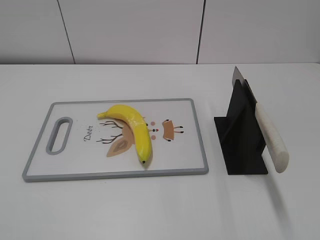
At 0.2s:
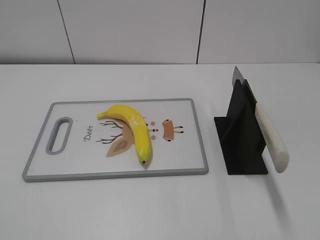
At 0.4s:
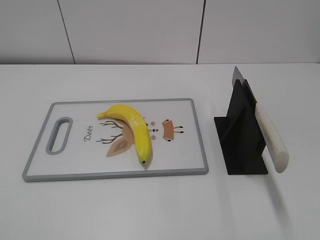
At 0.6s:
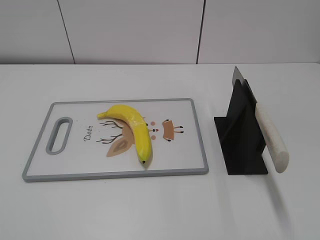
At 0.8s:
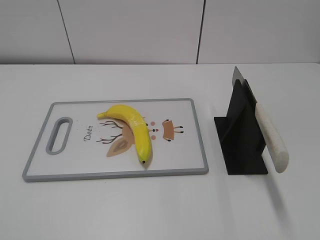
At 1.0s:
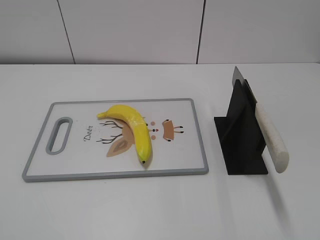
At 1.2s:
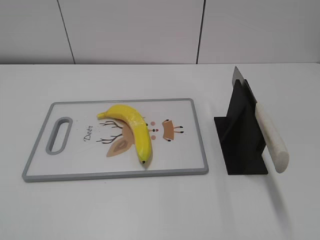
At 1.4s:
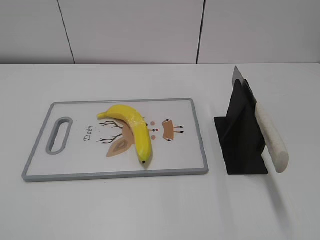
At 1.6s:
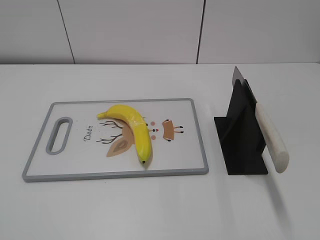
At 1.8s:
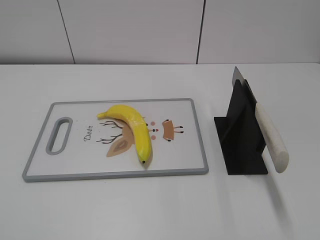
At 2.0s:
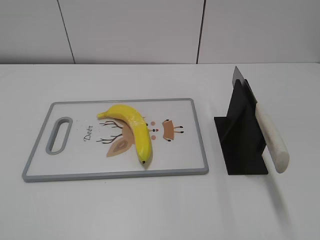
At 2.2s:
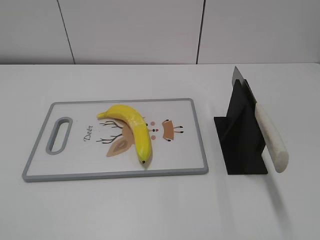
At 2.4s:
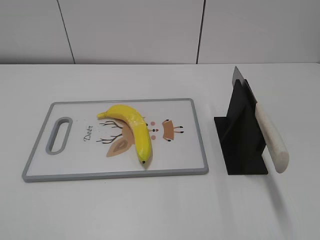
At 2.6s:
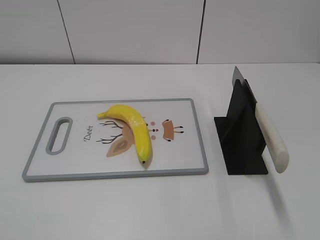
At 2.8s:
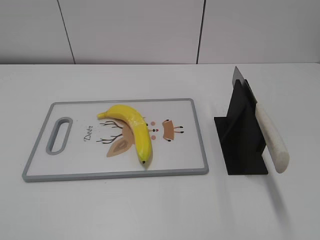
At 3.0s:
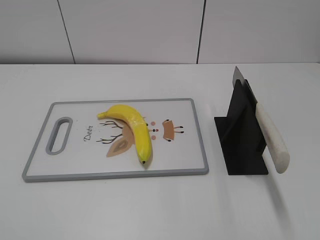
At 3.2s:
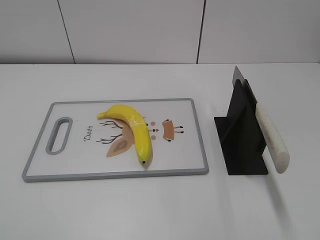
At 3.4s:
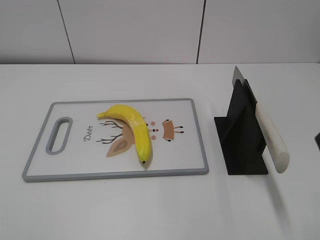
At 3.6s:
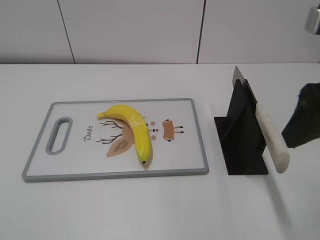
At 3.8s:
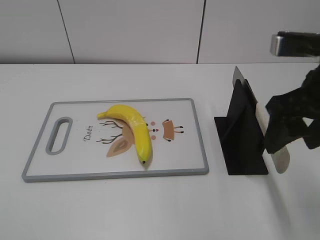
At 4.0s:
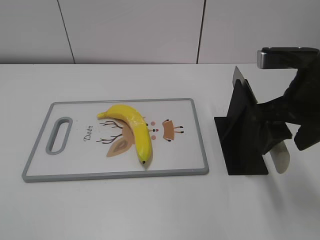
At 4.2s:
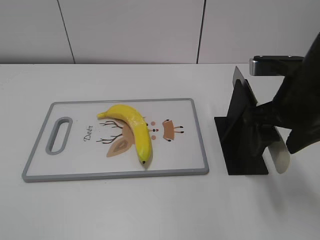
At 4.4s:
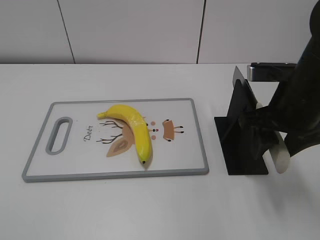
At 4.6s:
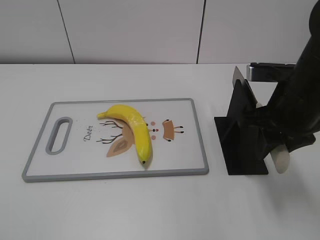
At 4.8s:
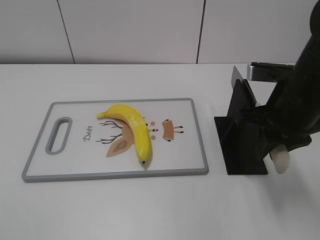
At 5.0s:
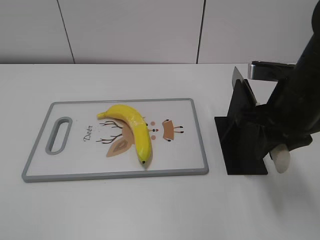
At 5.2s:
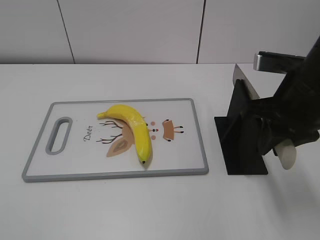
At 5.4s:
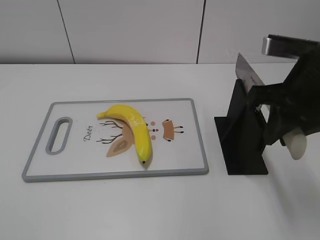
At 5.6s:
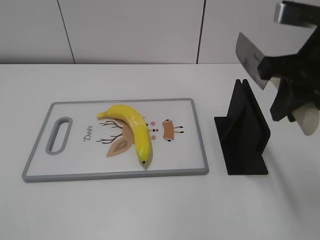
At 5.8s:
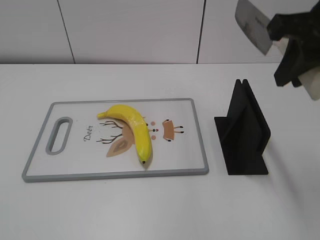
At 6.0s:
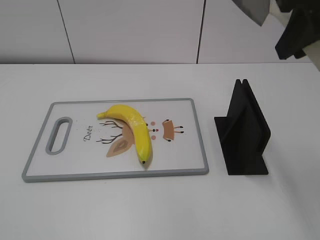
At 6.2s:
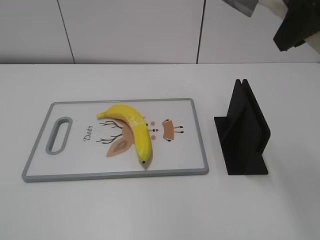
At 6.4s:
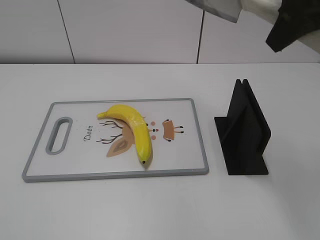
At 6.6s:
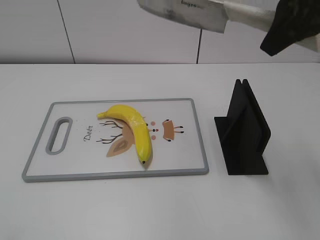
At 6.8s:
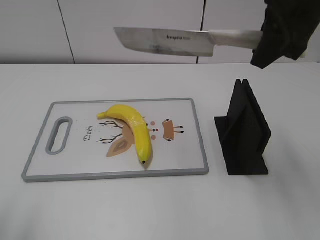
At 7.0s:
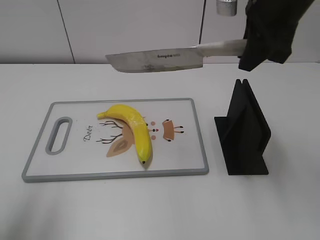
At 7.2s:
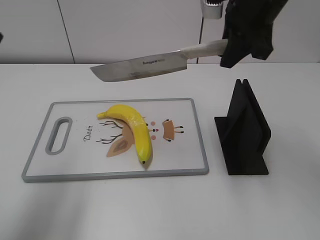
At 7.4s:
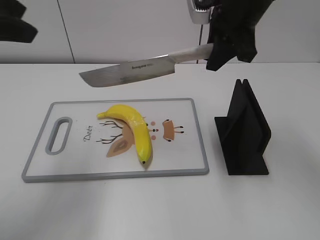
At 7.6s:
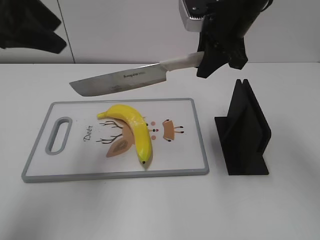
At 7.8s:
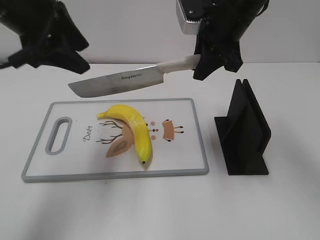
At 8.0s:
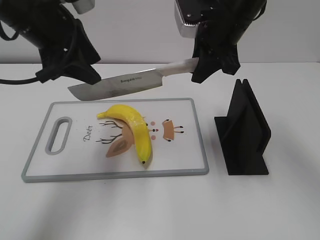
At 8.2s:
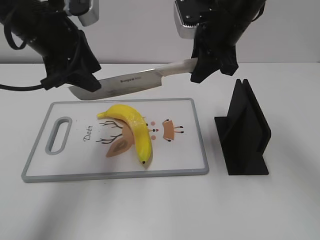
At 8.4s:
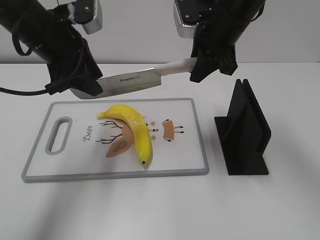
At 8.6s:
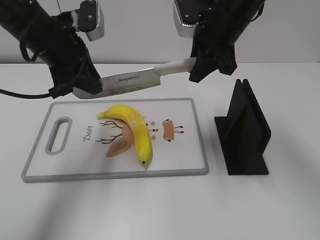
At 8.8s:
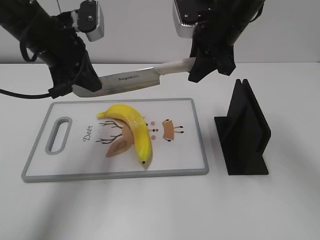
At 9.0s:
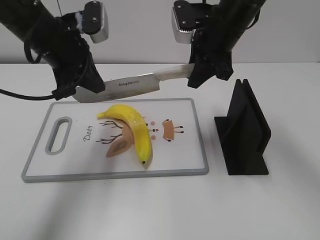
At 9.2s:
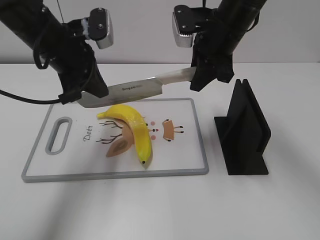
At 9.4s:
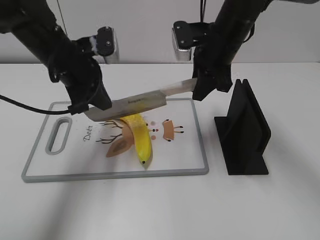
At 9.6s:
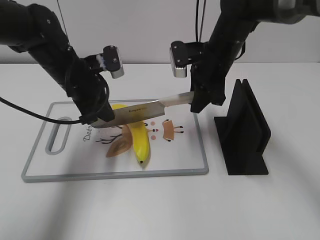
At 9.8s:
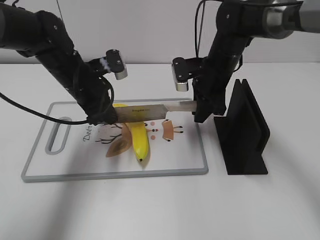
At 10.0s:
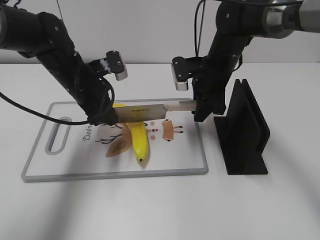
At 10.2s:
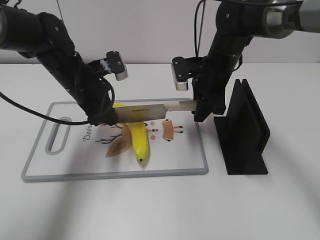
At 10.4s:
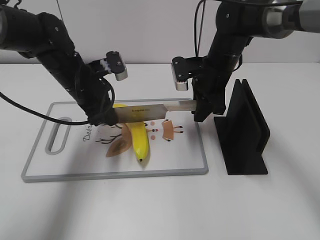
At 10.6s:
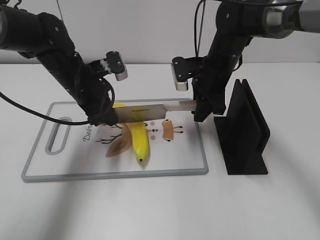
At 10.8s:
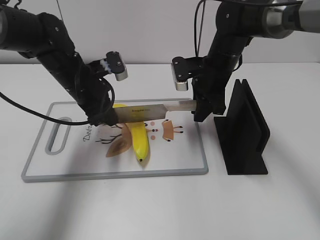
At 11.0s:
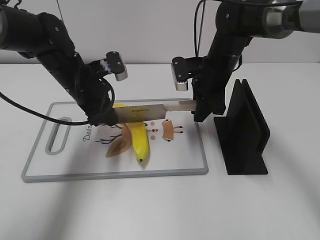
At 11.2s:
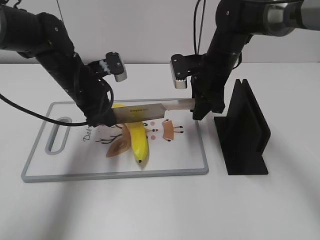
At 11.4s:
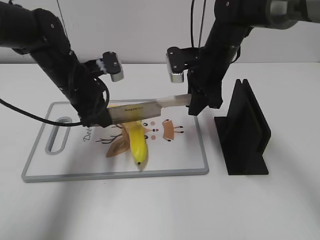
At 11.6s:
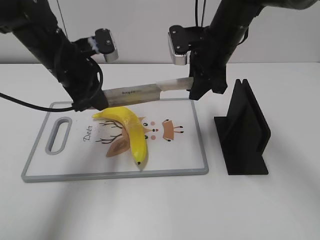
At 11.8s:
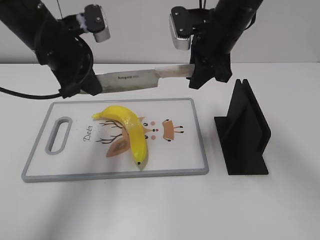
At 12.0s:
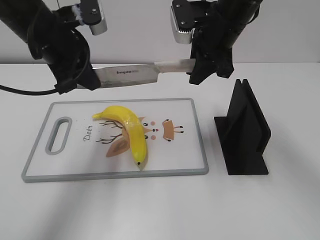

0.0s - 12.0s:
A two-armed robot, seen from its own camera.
Task of the whole recording: cut plastic banana.
Step, 0.0s - 6.0s: Grab the knife handle with your right hand.
Step, 6.2s - 11.0s: Lift the knife with your right hand.
3.0s - 4.4s: The right gripper travels forward, downward and to the left by approximately 20 cm.
4.4s - 6.0s: The right gripper travels upward by some 15 cm, and closes up.
6.0s - 7.6s: The left gripper shifts about 30 cm forward, while the right gripper shifts approximately 20 cm forward, downward and to the left.
7.6s - 9.0s: The left gripper heads downward and to the right, covering approximately 10 cm, and closes its fingers.
9.0s - 10.4s: Both grippers travel together downward, about 10 cm.
10.4s - 12.0s: The two grippers go roughly 10 cm upward.

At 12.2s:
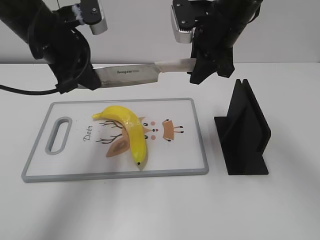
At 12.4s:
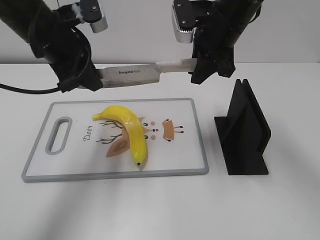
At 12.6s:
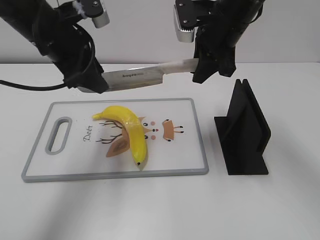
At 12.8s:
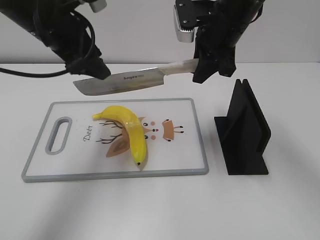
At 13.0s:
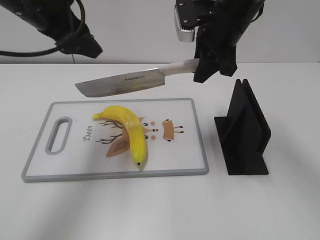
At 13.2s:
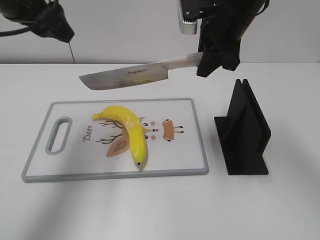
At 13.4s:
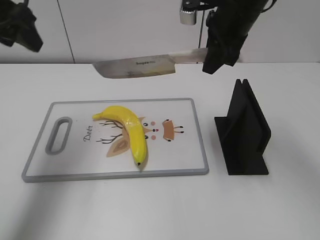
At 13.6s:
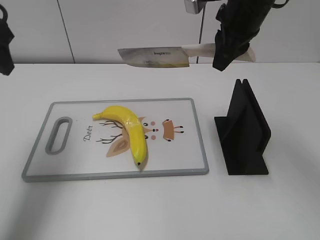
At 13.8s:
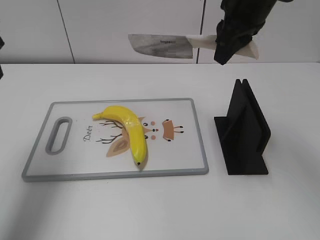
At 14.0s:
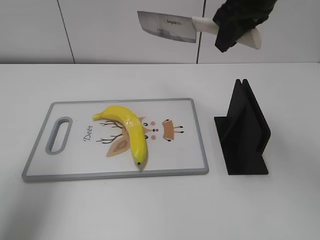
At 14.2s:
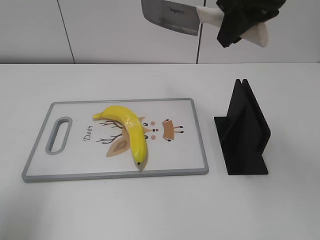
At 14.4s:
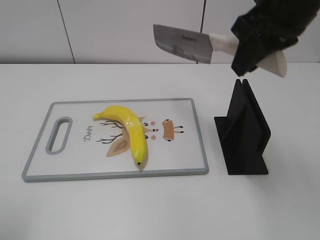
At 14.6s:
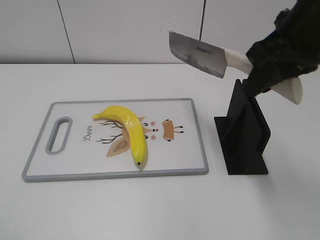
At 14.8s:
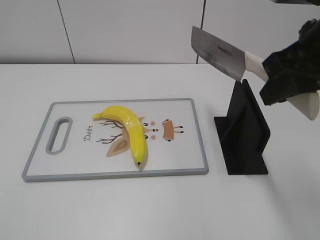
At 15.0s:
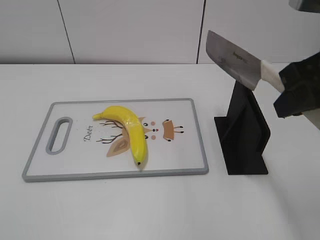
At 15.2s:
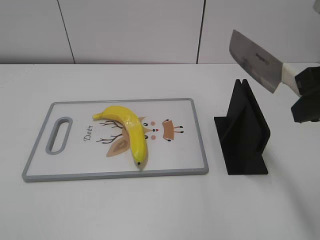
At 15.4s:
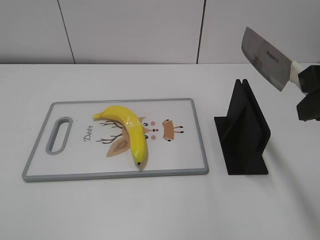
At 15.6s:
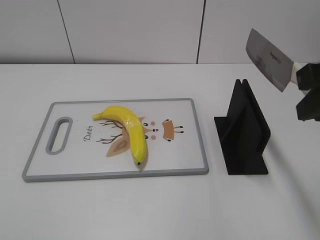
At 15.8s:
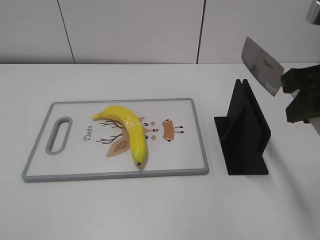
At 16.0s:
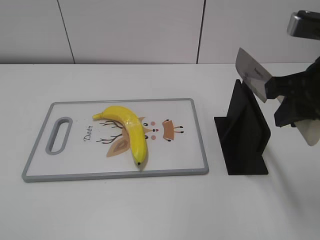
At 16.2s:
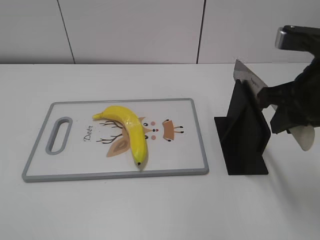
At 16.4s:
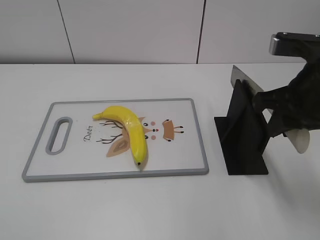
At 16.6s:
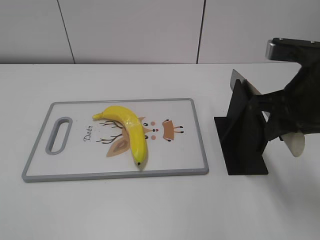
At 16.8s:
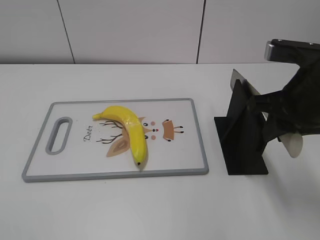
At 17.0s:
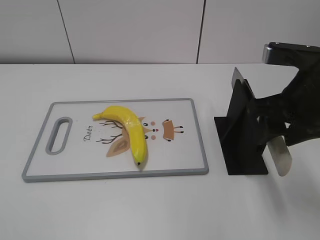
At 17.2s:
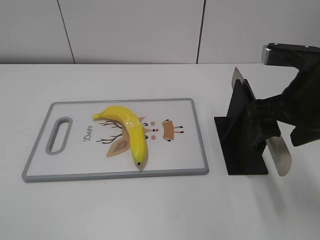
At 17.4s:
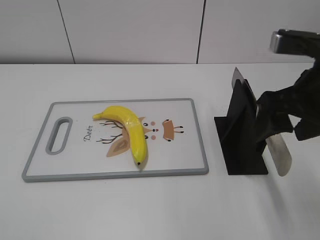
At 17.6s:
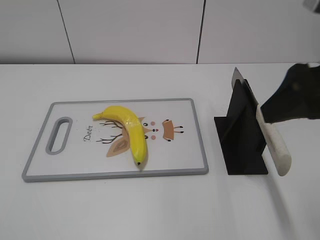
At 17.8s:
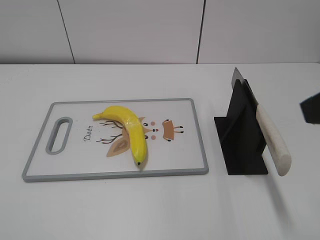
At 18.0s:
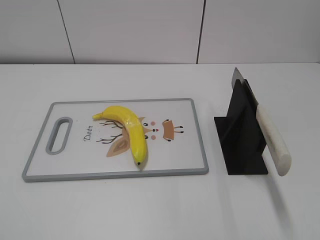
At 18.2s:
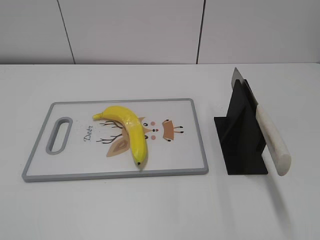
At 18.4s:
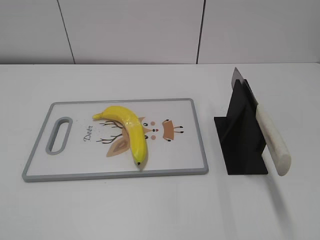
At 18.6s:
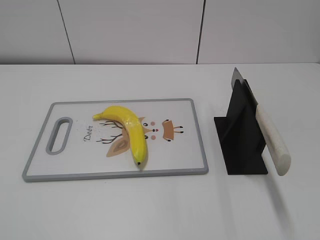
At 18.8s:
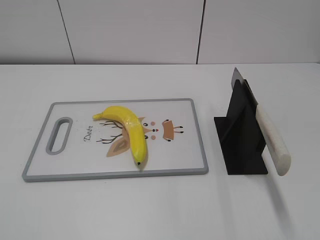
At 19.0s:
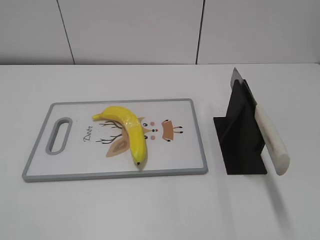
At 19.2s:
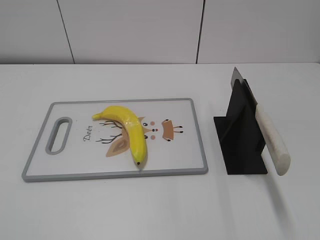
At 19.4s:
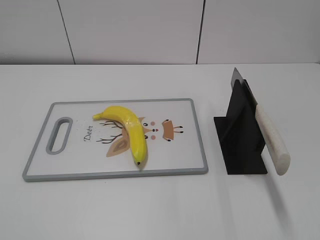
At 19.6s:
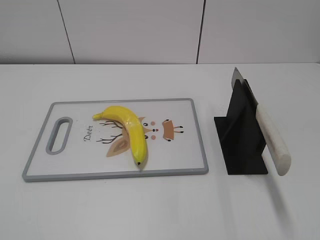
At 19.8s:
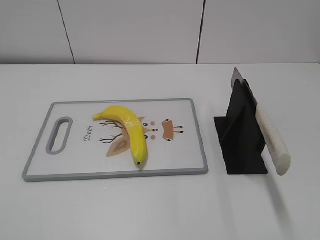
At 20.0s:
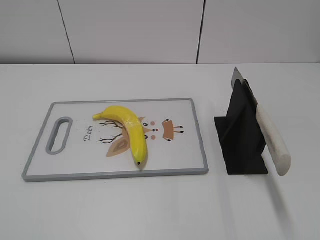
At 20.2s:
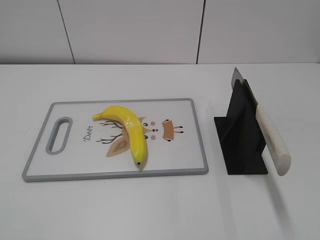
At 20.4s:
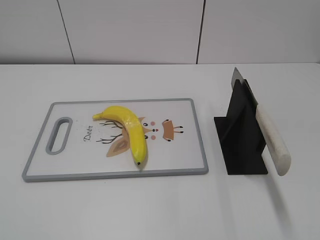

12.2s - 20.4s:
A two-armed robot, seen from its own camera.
Task of the whole recording: cut plastic banana.
Step, 12.2s - 13.4s: Cut the banana with your right hand.
Step, 13.8s - 15.8s: Lift the knife with your right hand.
Step, 16.0s - 20.4s: Place the knife on the storage rack with your right hand.
12.2s - 13.8s: The left gripper travels to the left and upward by approximately 10 cm, and opens up, while the right gripper shifts roughly 5 cm upward.
13.8s - 15.4s: The right gripper goes about 20 cm backward and to the right; the left gripper travels backward by some 30 cm.
15.4s - 17.2s: The right gripper shifts some 5 cm downward, and opens its fingers.
17.2s - 18.8s: The right gripper shifts about 25 cm backward and to the right.

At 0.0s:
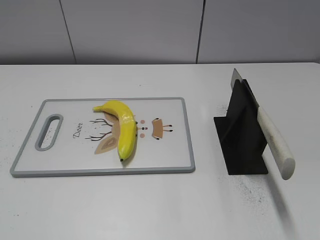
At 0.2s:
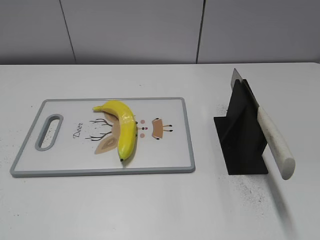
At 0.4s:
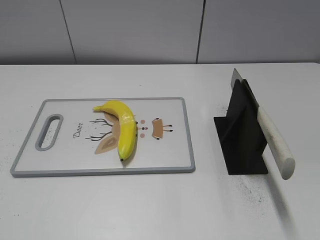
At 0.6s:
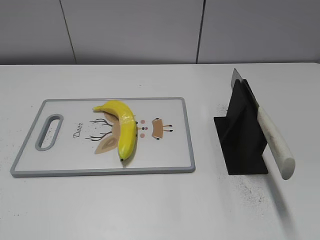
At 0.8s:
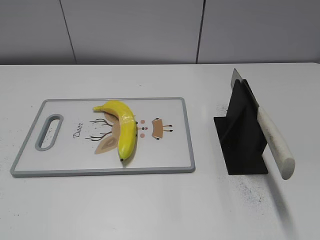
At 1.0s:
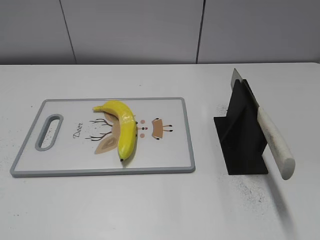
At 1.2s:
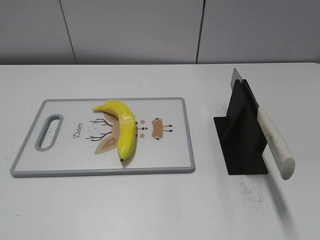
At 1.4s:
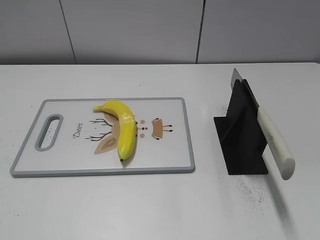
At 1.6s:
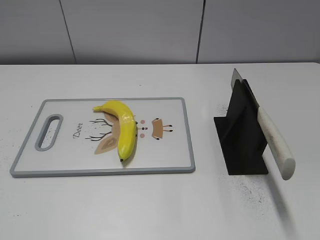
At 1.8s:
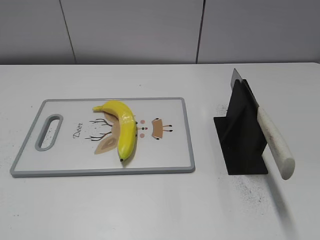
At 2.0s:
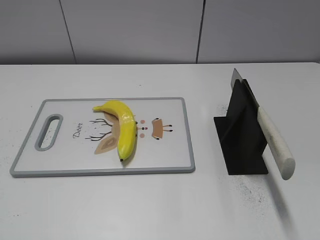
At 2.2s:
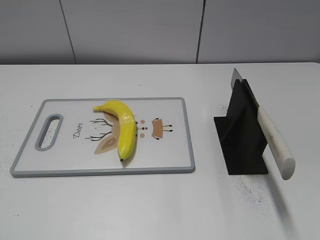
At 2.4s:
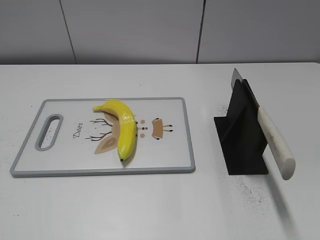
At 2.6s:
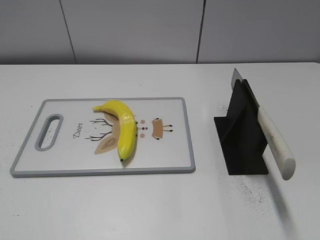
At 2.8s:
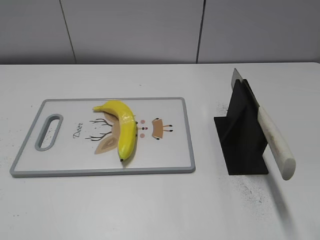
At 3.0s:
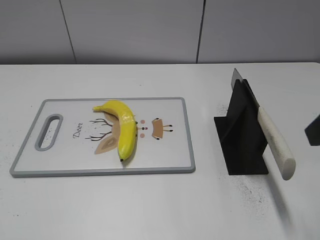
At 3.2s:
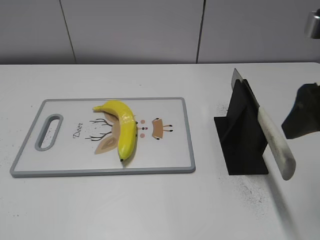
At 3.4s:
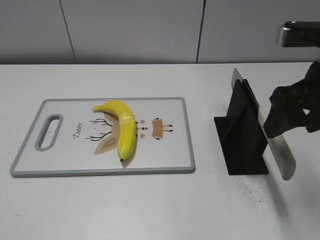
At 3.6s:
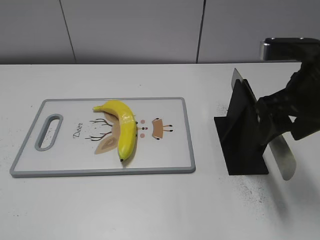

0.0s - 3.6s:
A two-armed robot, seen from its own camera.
Task of the whole recording: cut plastic banana.
1.8s - 3.6s: The right gripper heads forward and to the left, covering roughly 30 cm.
